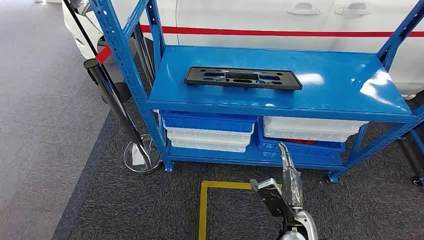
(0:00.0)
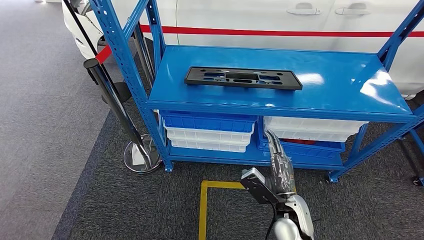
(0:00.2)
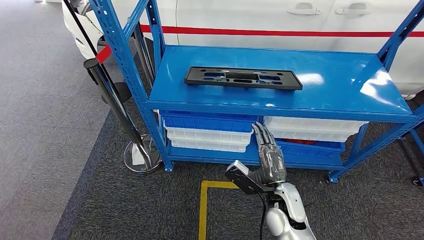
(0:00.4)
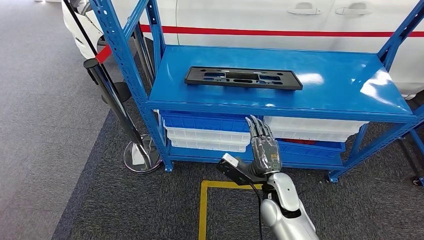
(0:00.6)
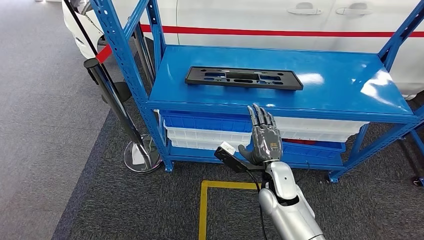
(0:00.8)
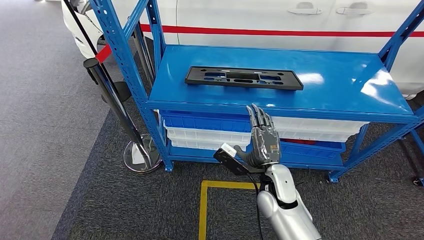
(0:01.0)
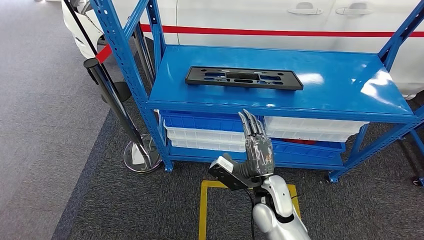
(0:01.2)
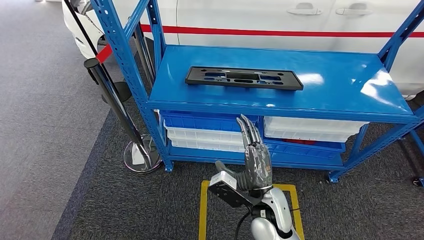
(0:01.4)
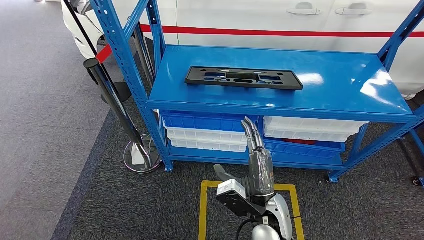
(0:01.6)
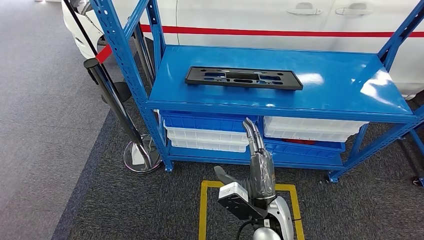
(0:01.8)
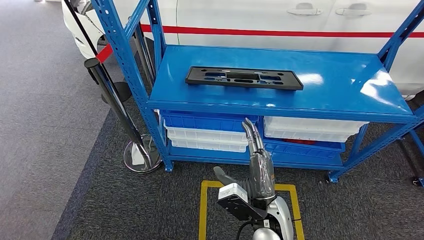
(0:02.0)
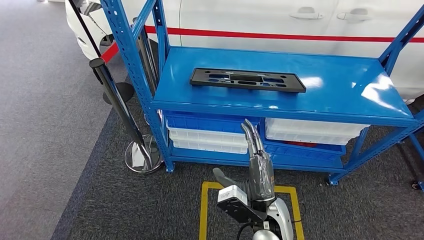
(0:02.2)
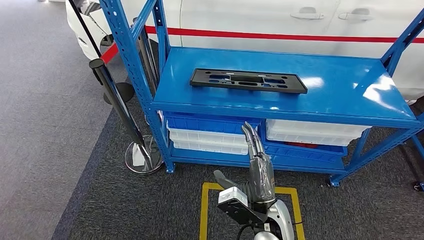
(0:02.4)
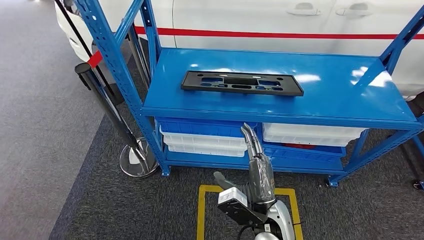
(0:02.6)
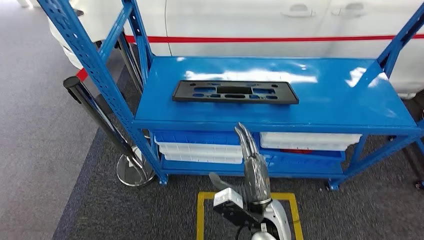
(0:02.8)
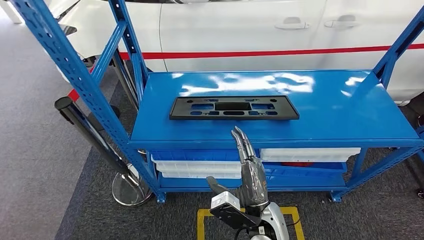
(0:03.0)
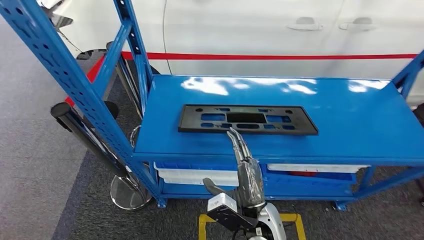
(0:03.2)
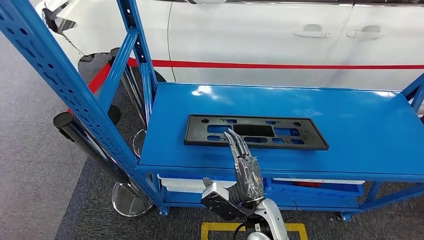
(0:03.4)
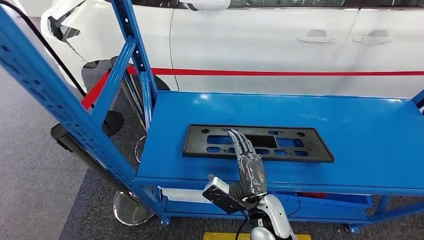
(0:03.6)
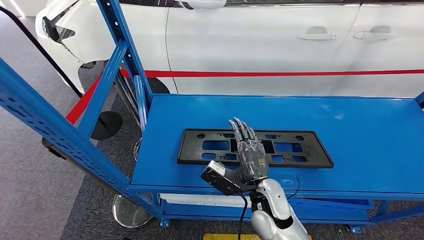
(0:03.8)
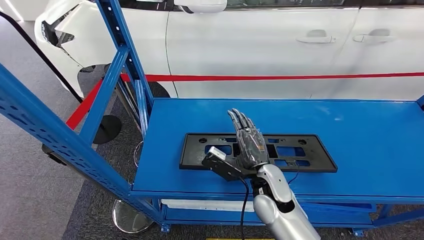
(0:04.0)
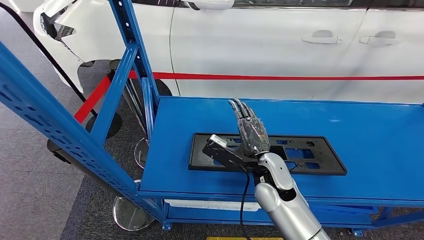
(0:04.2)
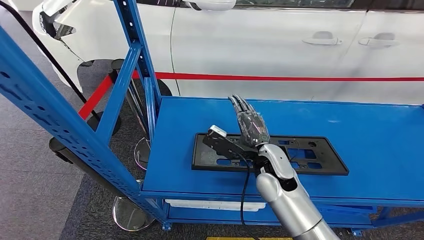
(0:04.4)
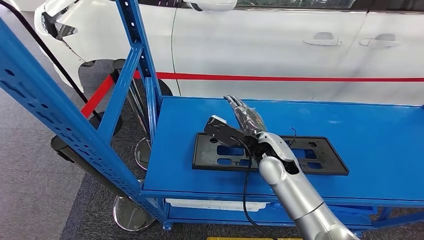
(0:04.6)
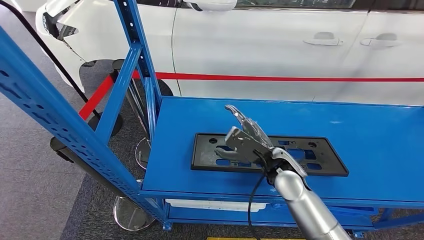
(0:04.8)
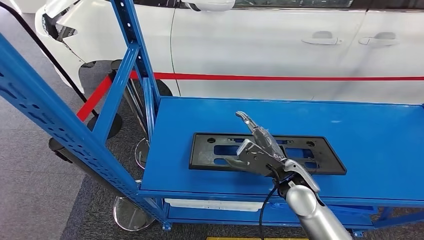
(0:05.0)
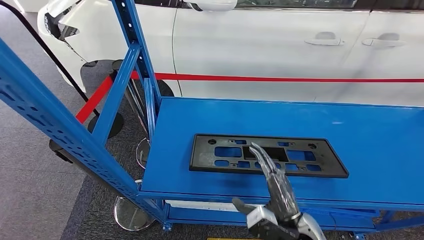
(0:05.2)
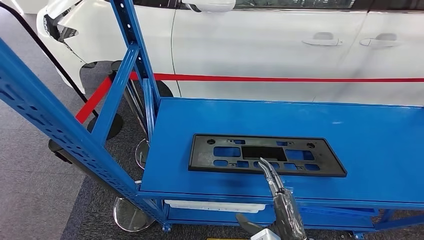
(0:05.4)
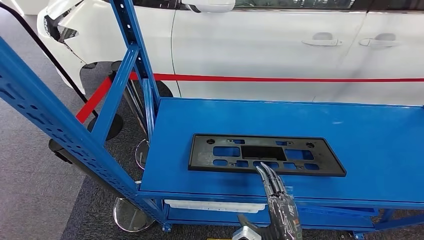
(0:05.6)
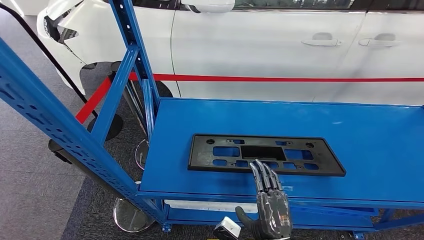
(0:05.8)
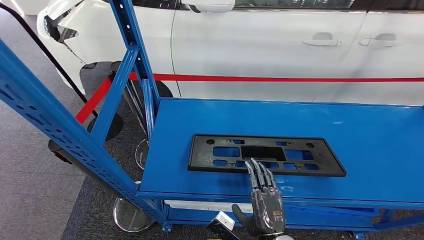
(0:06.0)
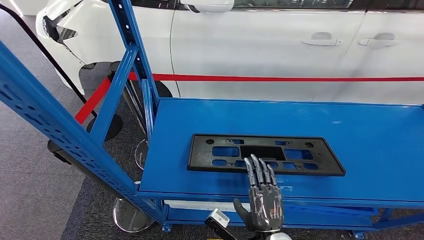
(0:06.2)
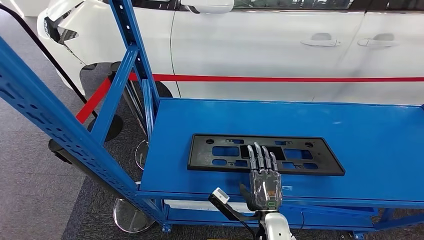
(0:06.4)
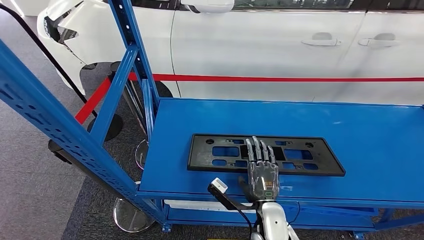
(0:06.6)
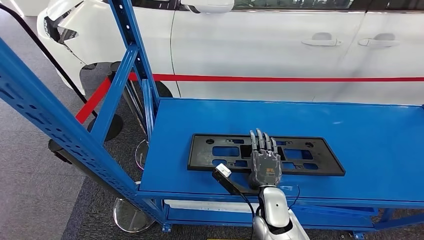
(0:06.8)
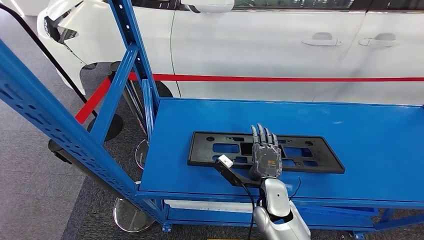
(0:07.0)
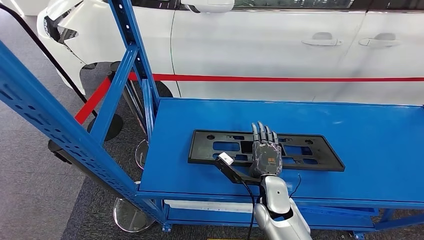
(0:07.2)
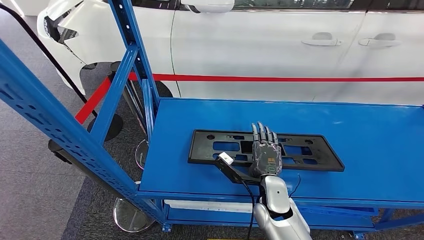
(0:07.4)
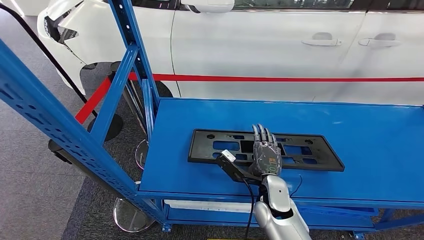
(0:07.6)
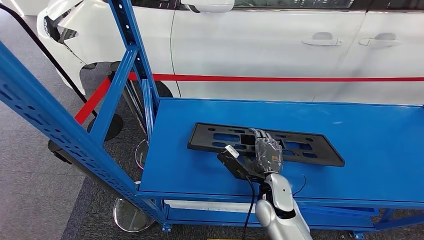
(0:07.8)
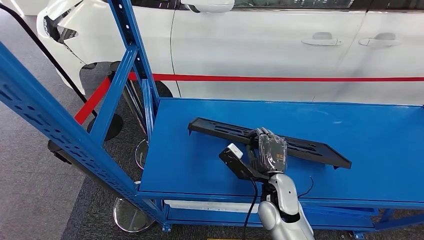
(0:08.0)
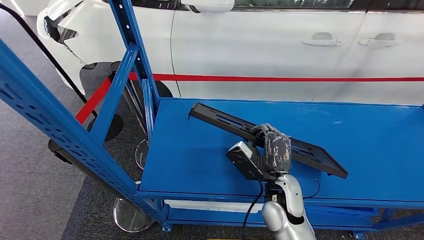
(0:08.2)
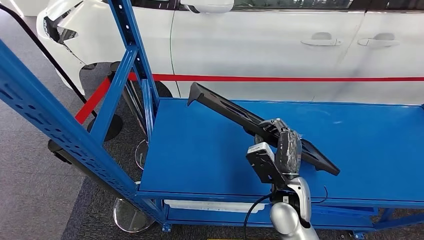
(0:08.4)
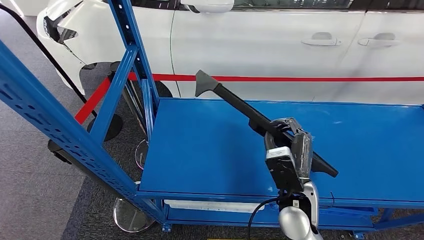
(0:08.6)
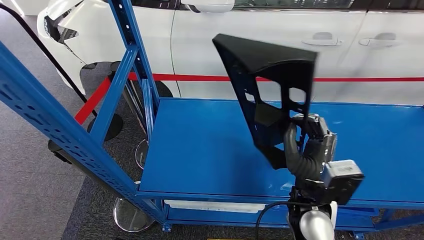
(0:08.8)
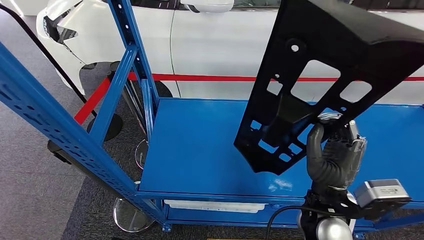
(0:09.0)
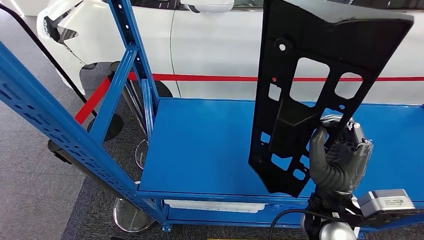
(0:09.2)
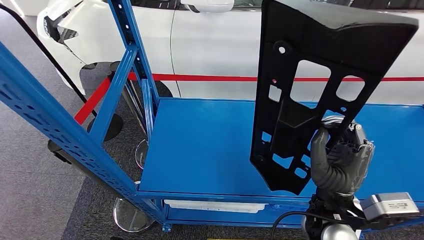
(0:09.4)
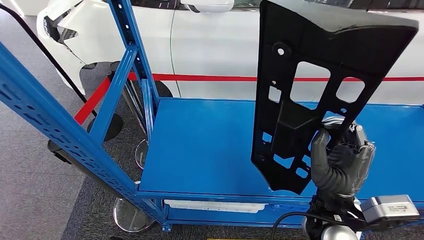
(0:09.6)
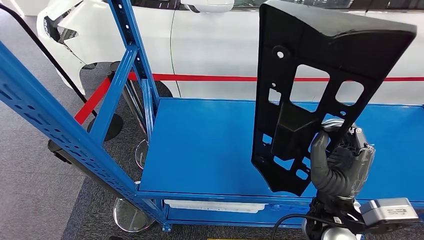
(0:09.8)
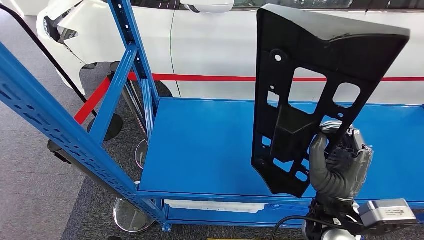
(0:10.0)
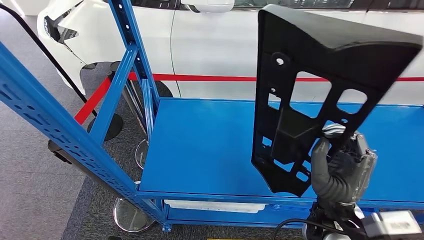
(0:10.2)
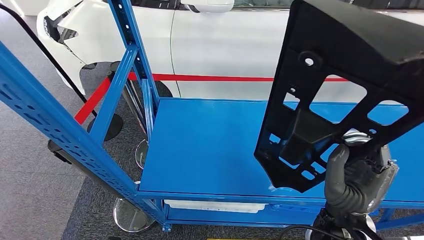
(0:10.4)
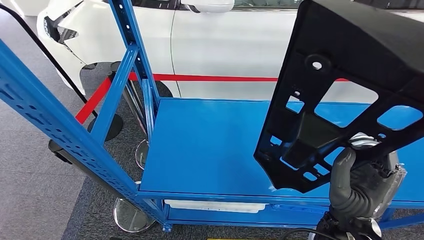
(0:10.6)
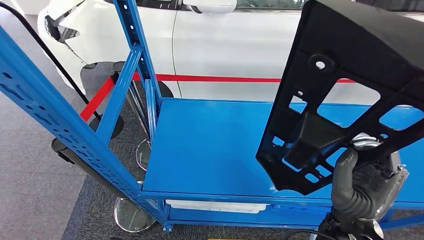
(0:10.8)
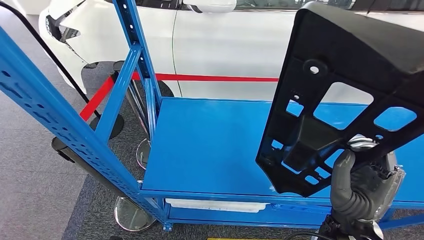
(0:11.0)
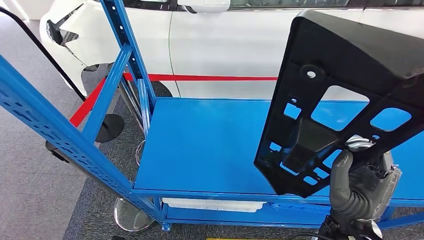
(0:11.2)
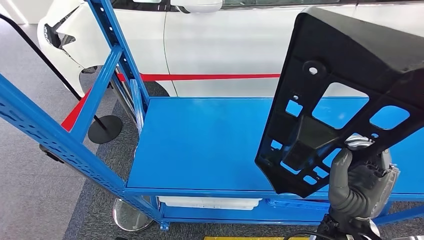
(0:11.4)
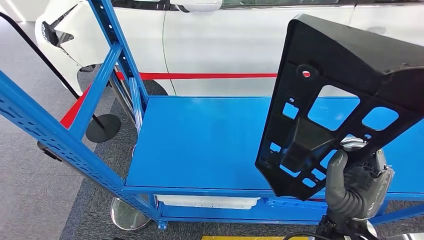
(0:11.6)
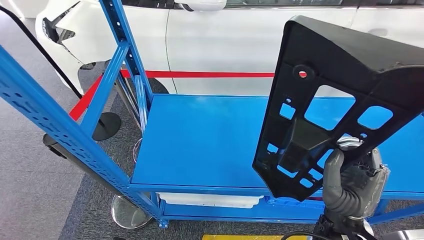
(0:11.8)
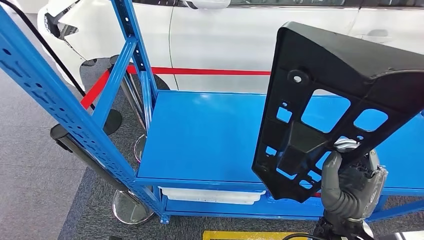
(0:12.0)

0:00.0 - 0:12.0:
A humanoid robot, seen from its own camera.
Step, 0:00.0 - 0:09.0: Pick up the large material from the shelf.
0:04.4 - 0:06.0: The right hand travels backward and downward by some 20 cm.
0:06.0 - 0:07.6: The right hand is displaced forward by about 15 cm.

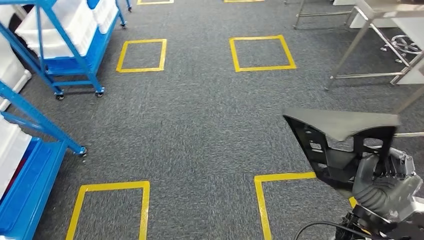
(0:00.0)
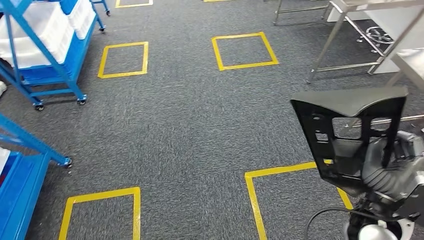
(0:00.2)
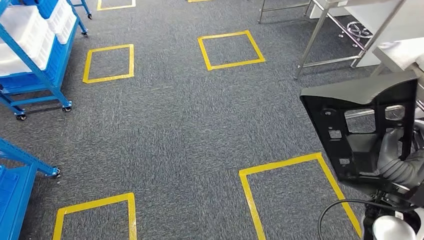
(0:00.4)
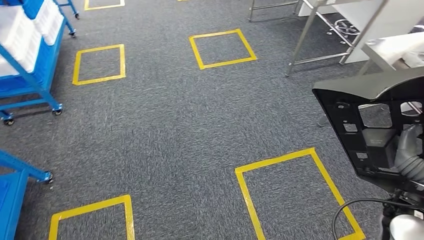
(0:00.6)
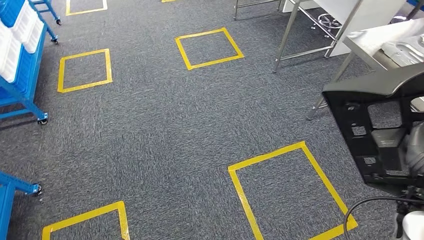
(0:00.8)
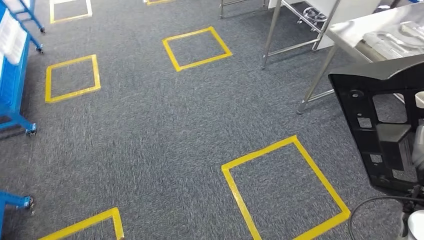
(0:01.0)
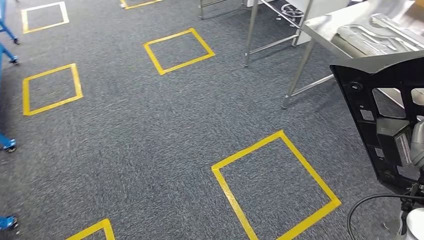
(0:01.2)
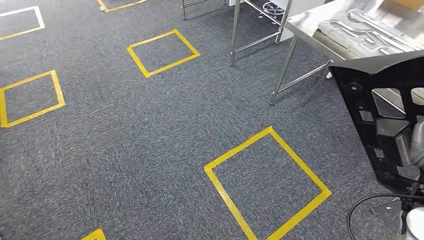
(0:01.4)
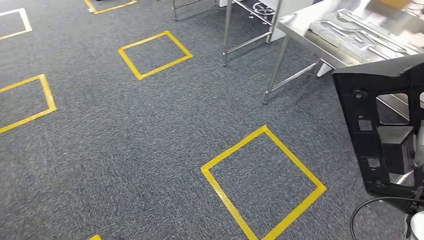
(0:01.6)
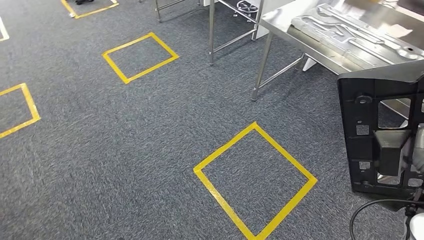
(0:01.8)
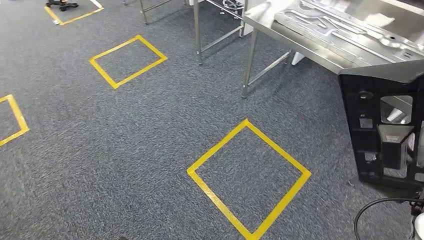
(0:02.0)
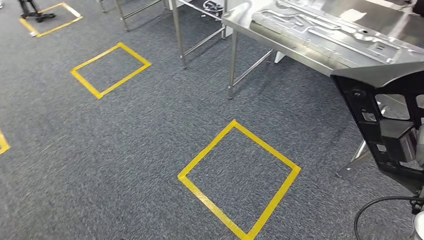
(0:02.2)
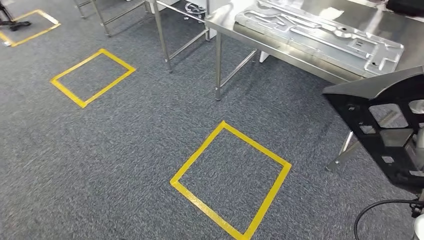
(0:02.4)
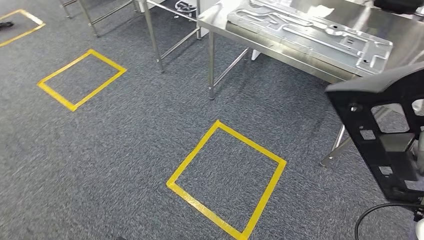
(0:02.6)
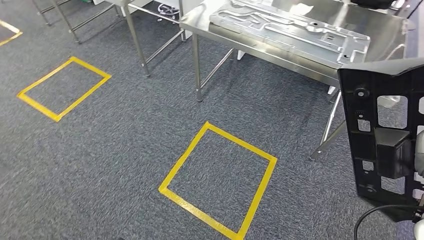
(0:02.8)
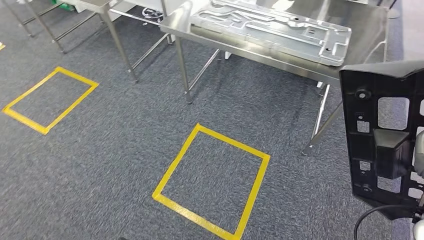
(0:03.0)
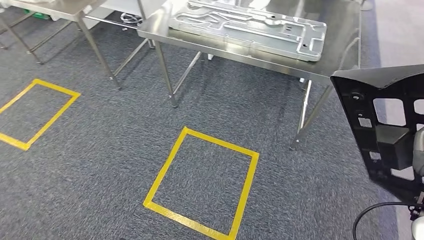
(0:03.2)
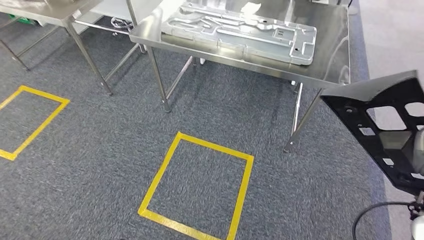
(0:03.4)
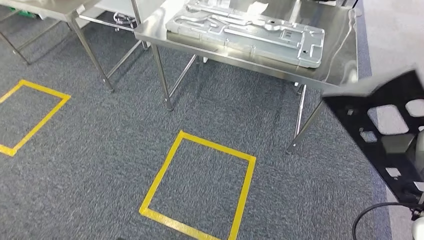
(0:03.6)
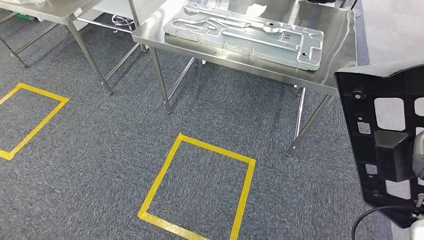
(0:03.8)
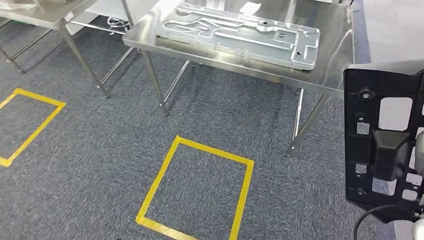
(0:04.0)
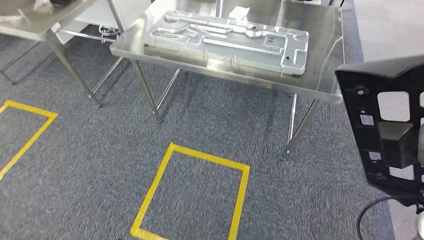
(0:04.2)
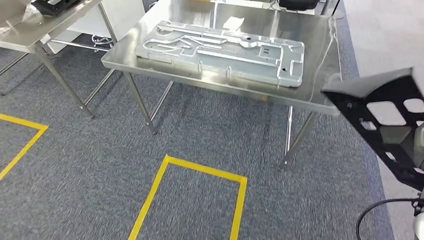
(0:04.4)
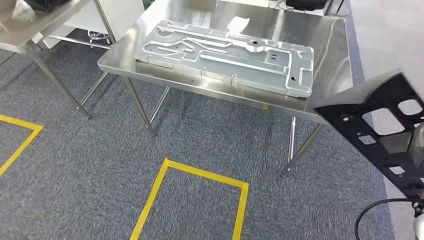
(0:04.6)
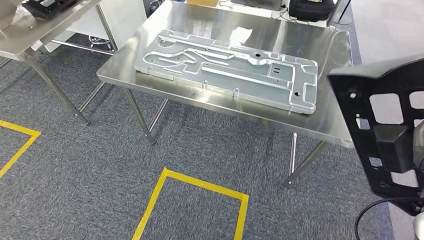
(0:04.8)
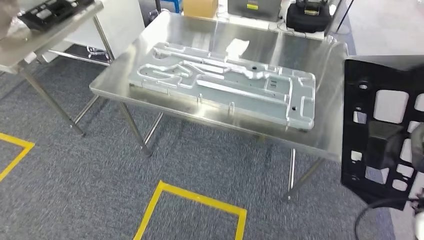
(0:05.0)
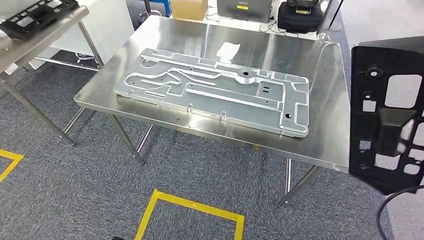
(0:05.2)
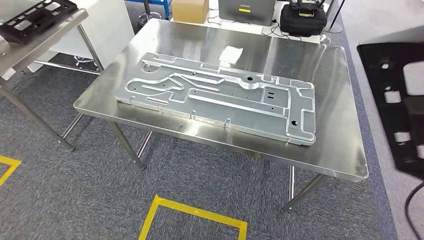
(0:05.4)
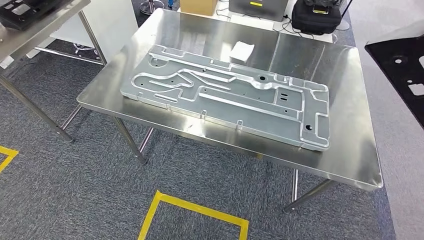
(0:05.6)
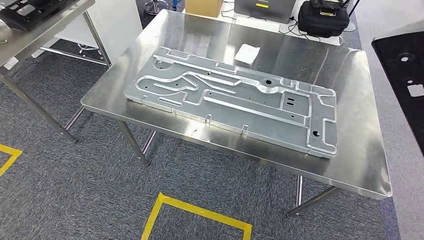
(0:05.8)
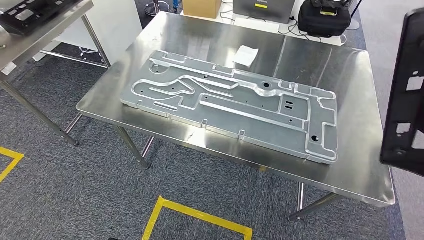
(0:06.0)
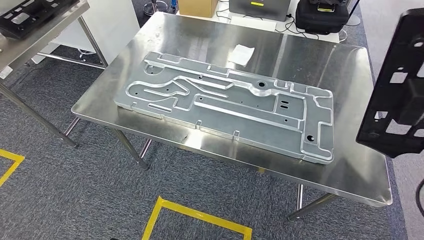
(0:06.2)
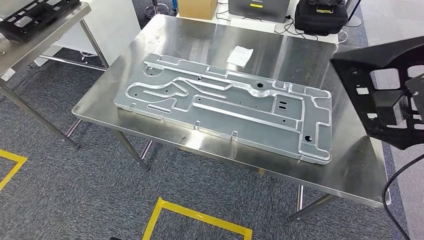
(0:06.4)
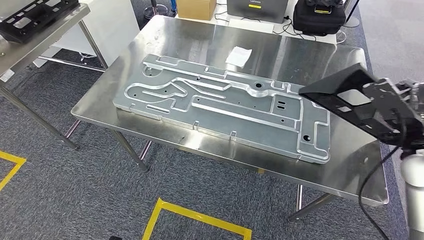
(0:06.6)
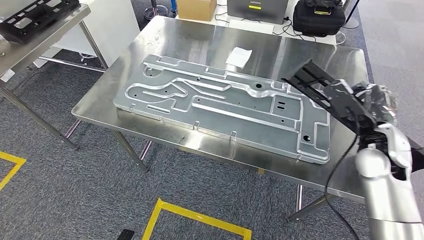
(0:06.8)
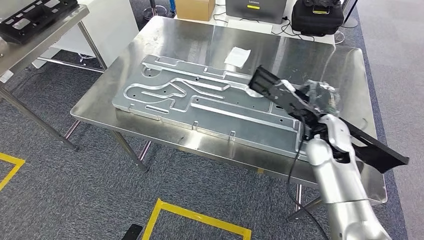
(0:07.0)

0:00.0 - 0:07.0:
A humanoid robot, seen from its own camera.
Step, 0:00.0 - 0:06.8: Move the large material to the workbench.
